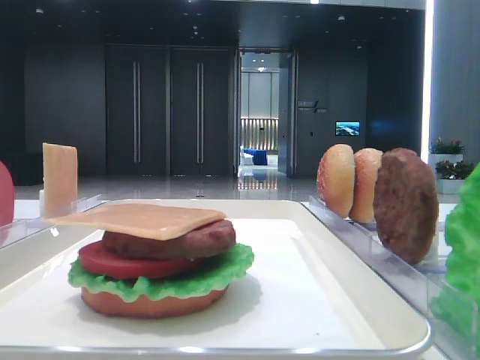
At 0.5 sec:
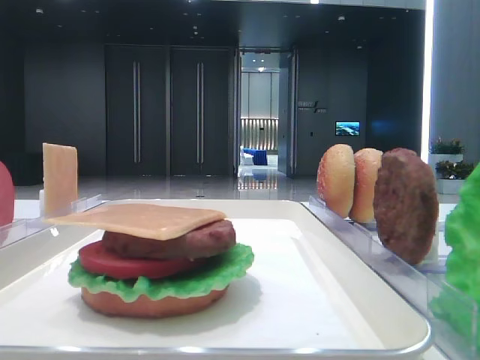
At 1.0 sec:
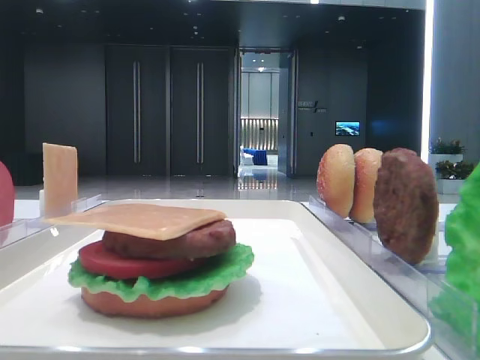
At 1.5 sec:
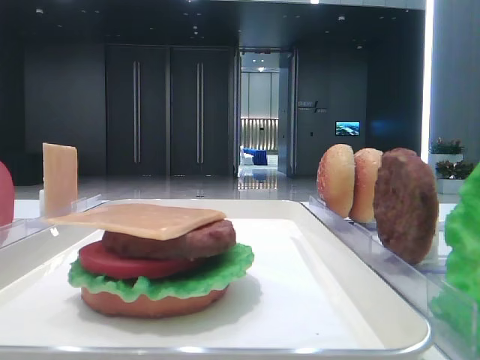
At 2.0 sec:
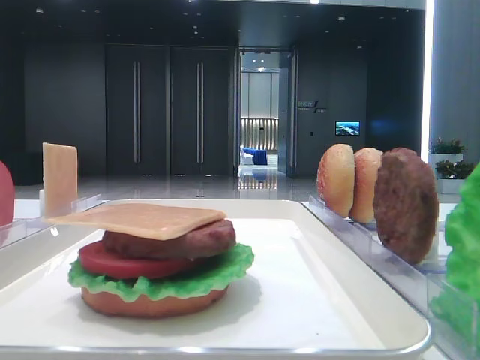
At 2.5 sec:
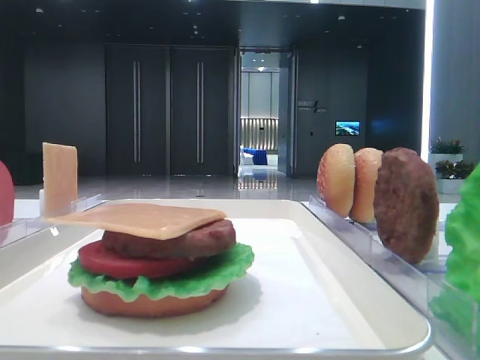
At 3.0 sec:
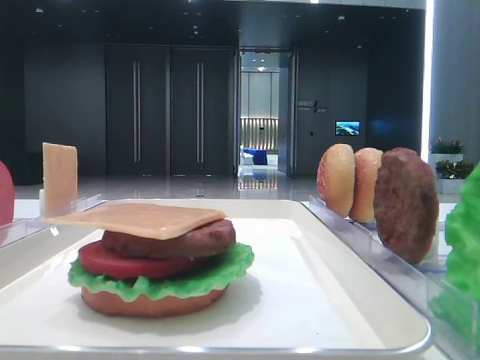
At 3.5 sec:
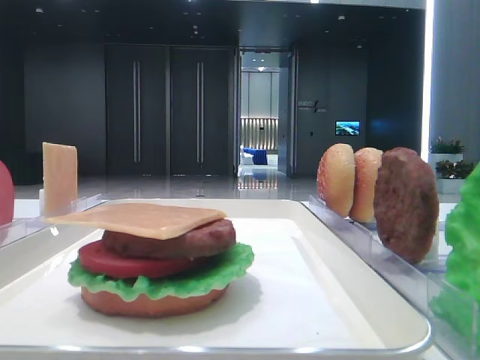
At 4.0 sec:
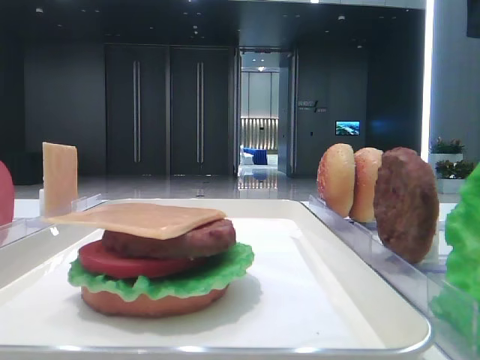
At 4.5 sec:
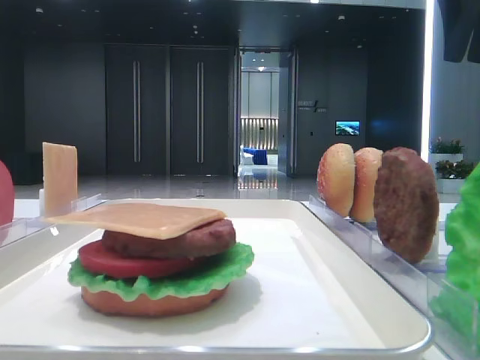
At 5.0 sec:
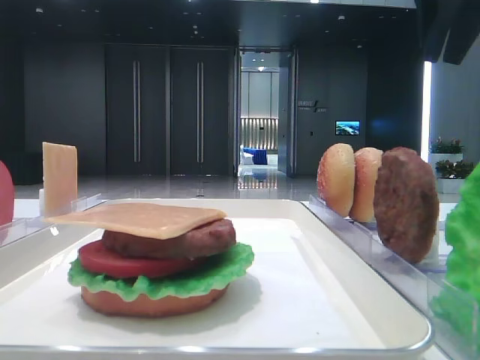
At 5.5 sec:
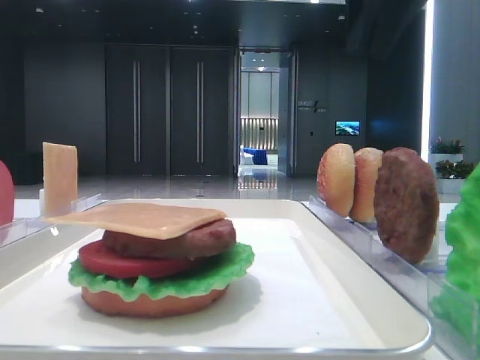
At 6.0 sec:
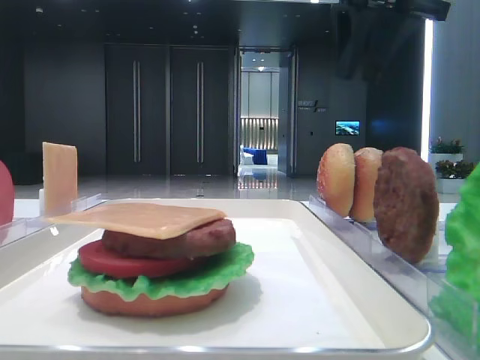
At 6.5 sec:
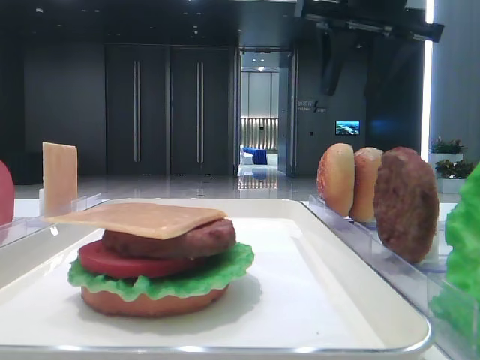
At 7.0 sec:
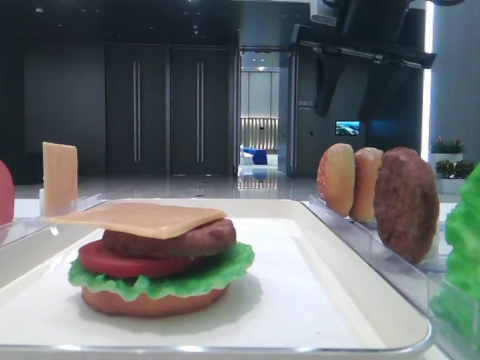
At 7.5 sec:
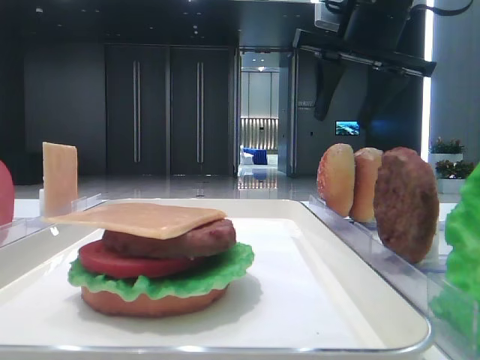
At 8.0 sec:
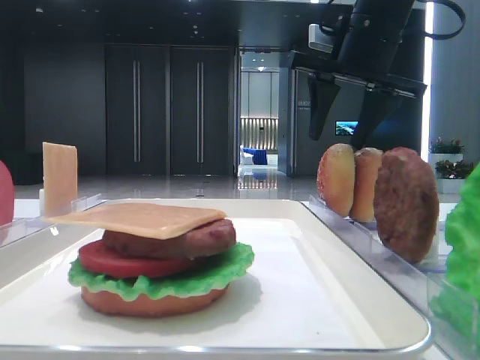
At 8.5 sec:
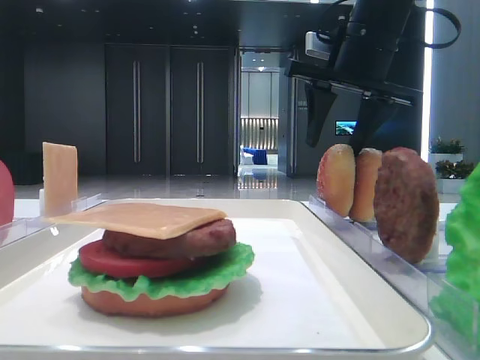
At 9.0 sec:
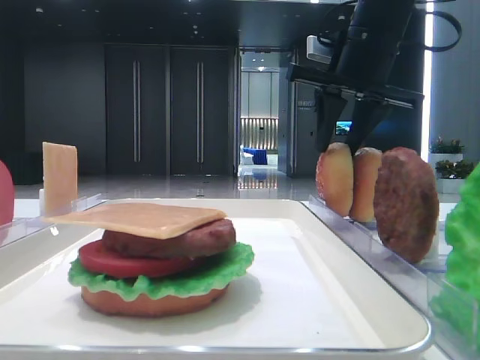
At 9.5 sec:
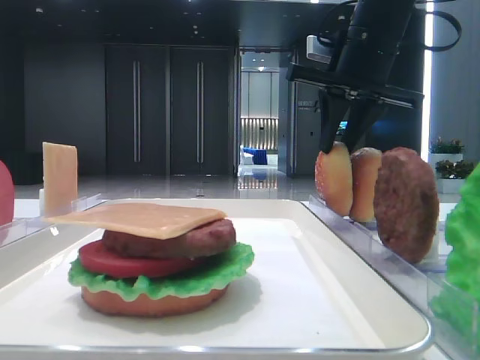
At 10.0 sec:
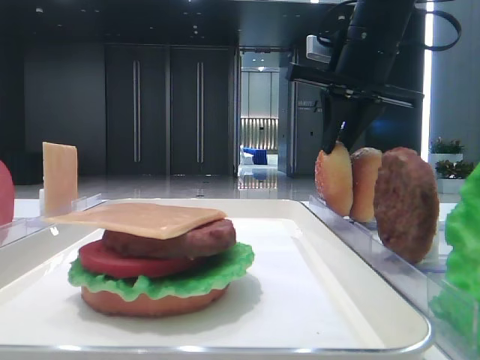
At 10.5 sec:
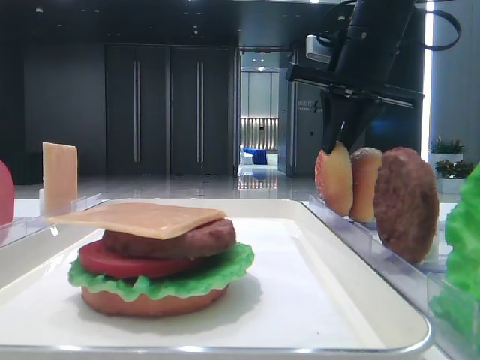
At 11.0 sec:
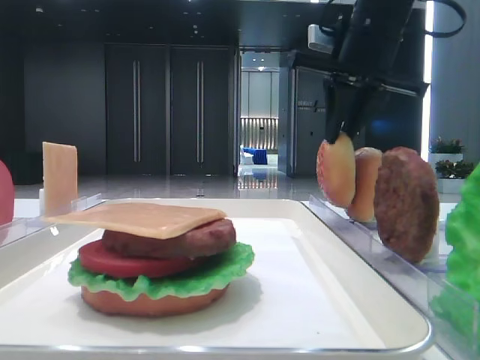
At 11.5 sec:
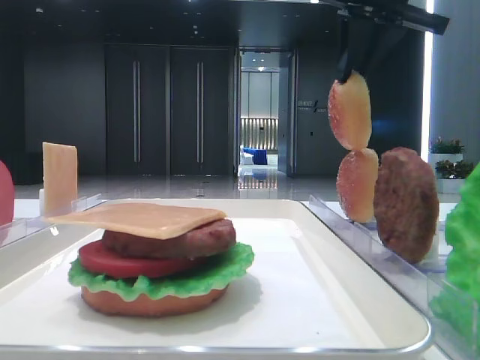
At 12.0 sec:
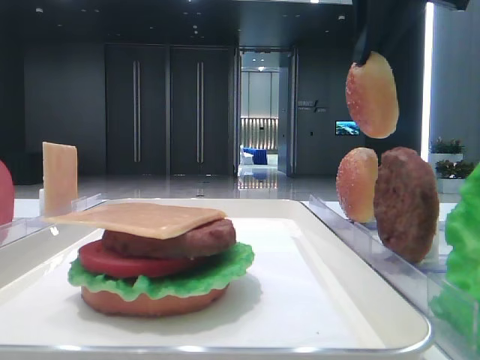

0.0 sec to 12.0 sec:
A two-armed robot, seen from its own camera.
Step, 0.0 sec to 10.5 sec: Pick up the top bread slice with the right hand.
4.0 sec to 6.0 sec: The right gripper is displaced to the left by roughly 10 cm.
6.0 sec to 8.0 sec: The right gripper travels downward and forward by about 10 cm.
8.0 sec to 10.0 sec: The right gripper closes up.
10.0 sec to 12.0 sec: The right gripper goes about 10 cm upward and backward.

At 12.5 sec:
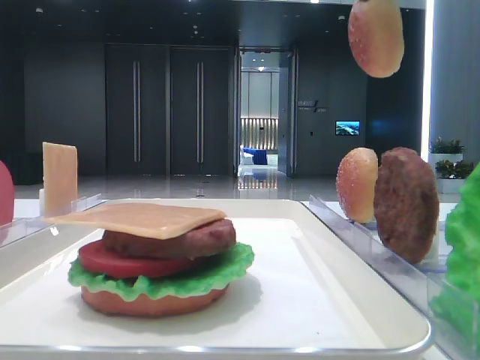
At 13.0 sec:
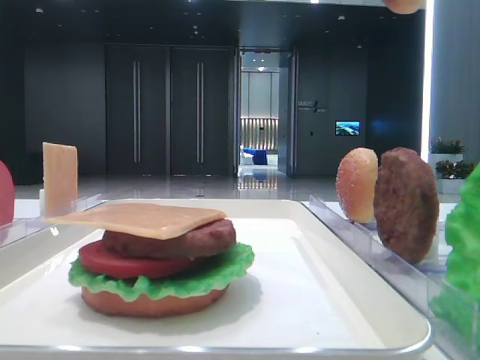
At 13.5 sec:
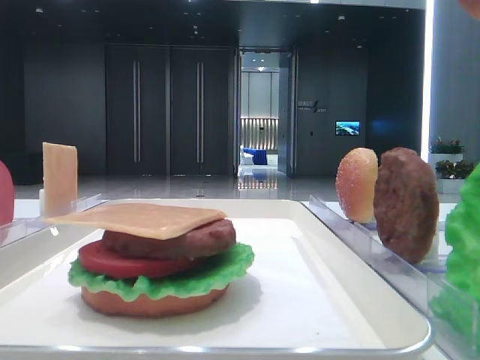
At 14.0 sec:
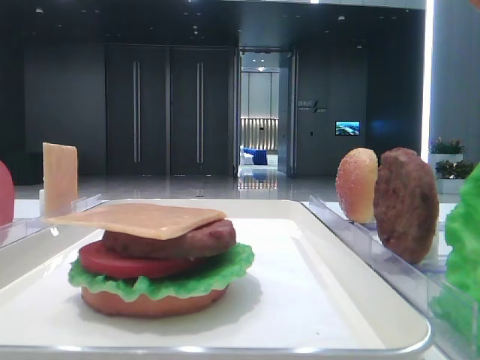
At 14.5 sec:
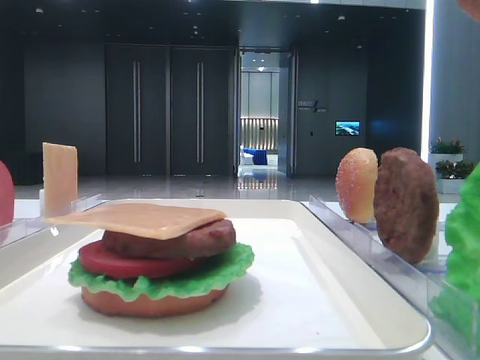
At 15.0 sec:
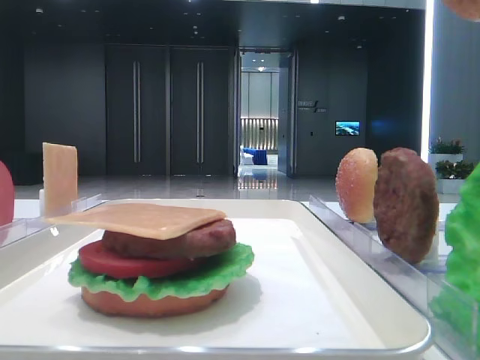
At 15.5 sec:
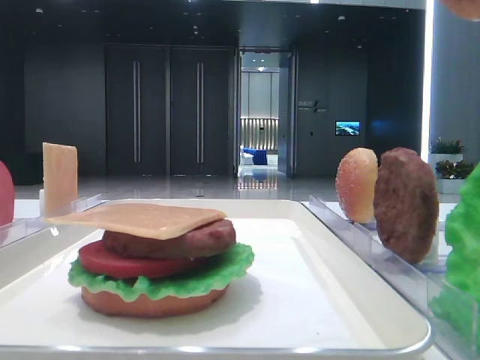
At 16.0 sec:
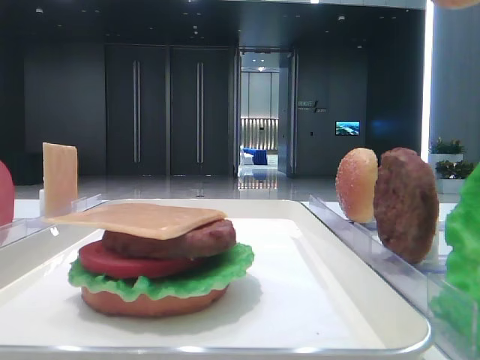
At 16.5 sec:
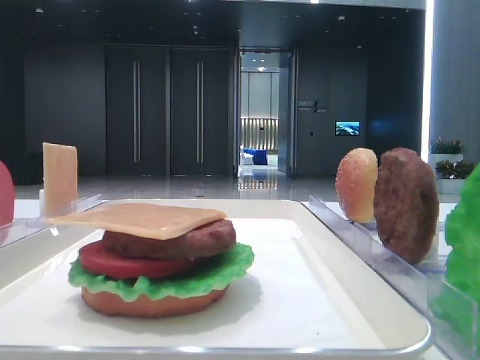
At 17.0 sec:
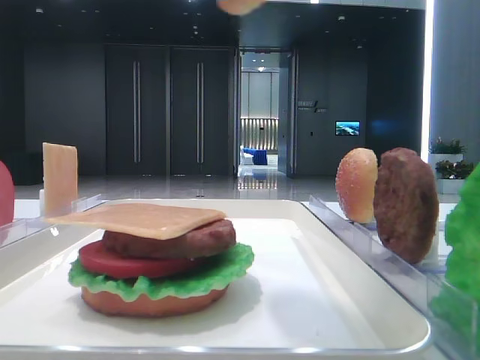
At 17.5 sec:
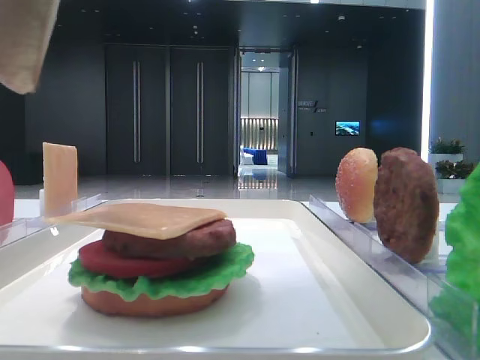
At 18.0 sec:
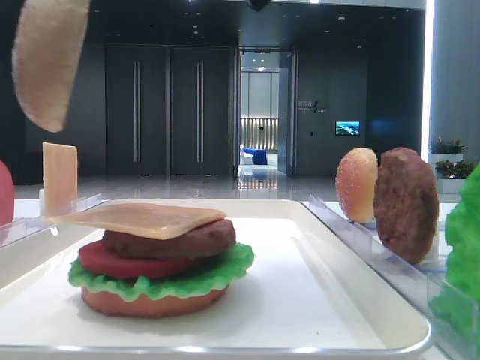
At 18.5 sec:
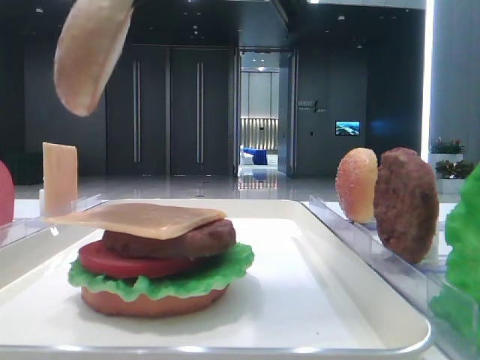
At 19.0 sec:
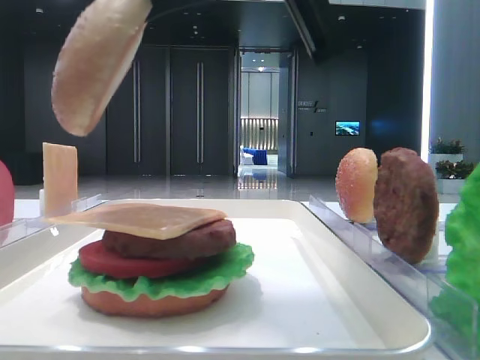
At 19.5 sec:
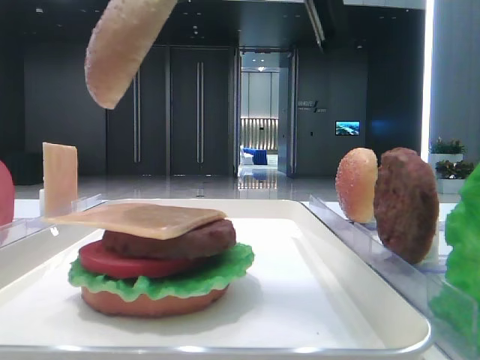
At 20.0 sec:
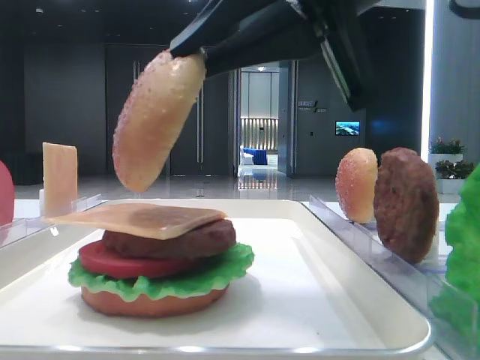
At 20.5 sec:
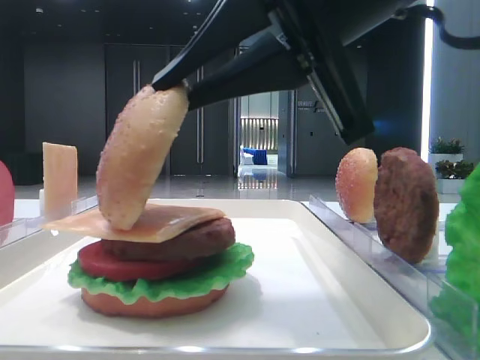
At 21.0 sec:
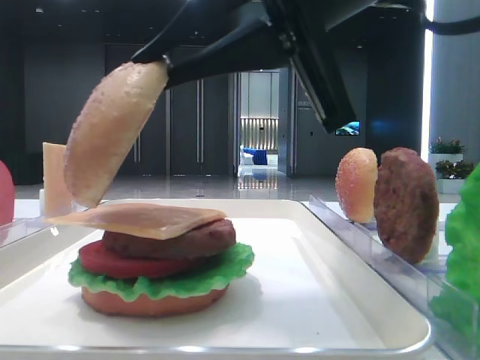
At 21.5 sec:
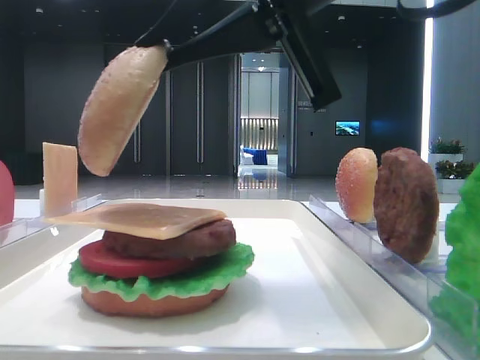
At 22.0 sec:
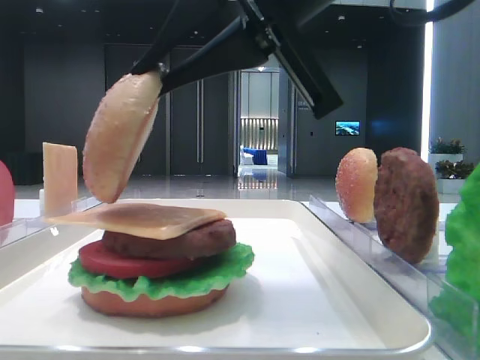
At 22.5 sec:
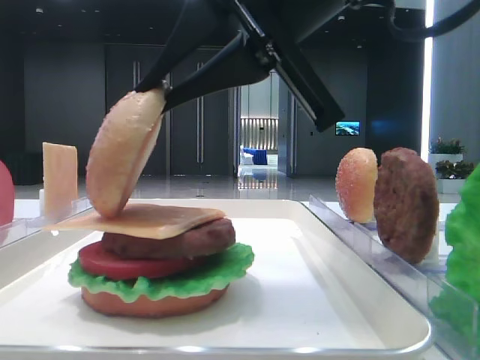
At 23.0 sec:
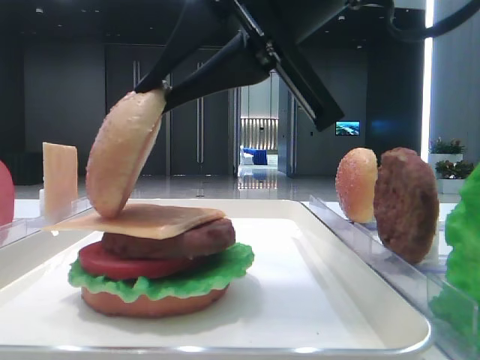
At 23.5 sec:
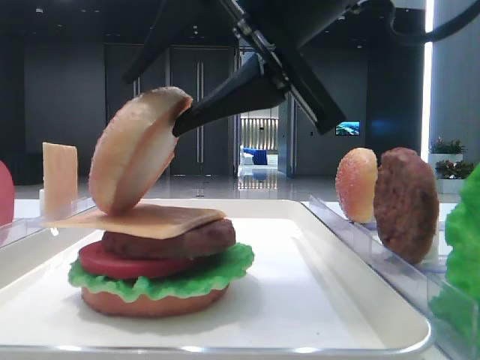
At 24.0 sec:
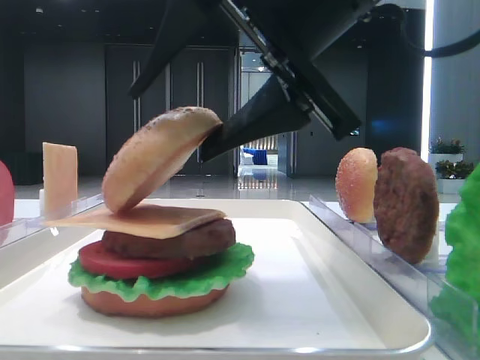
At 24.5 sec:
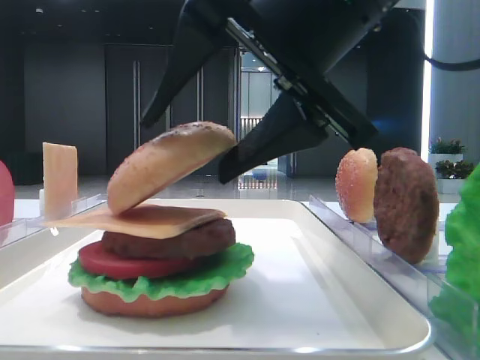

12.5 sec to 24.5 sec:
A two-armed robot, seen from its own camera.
12.5 sec to 14.5 sec: The right gripper is displaced backward by approximately 20 cm.
16.5 sec to 18.5 sec: The right gripper heads to the left and downward, covering roughly 20 cm.
18.5 sec to 20.5 sec: The right gripper moves downward, approximately 5 cm.
20.5 sec to 22.5 sec: The grippers move only a little.
22.5 sec to 24.5 sec: The right gripper opens its fingers.

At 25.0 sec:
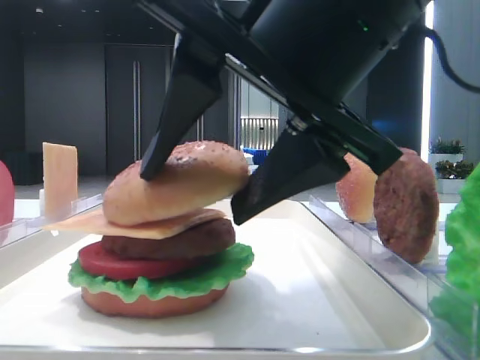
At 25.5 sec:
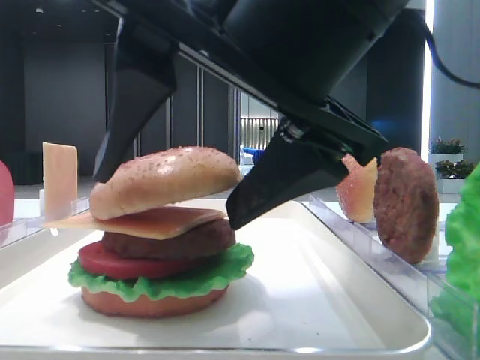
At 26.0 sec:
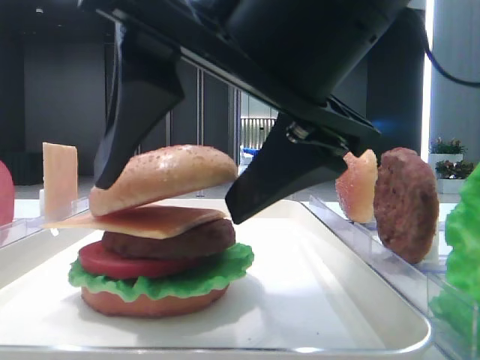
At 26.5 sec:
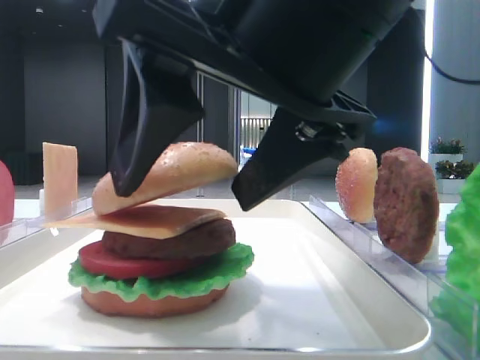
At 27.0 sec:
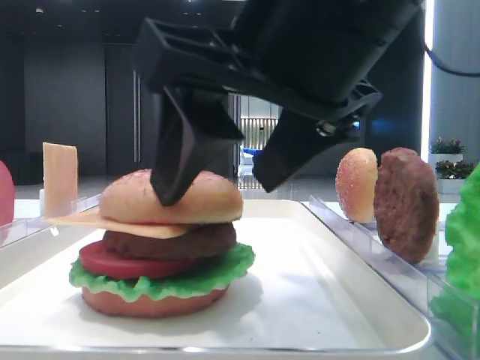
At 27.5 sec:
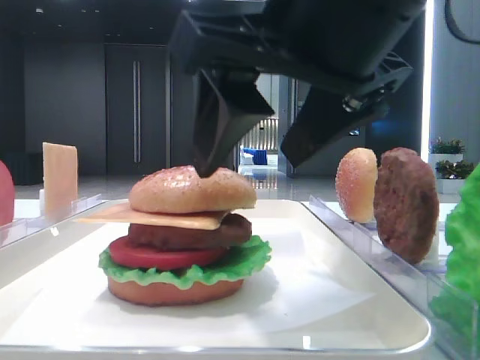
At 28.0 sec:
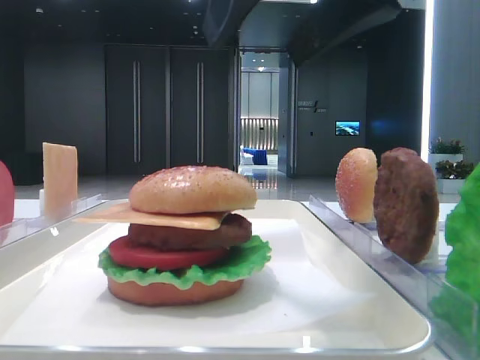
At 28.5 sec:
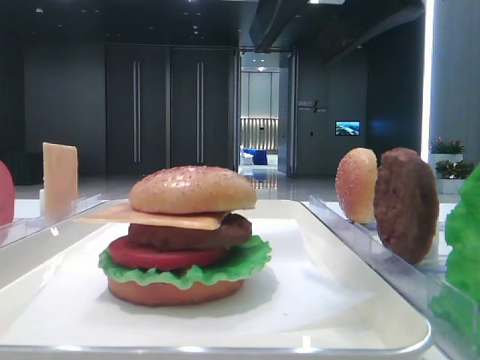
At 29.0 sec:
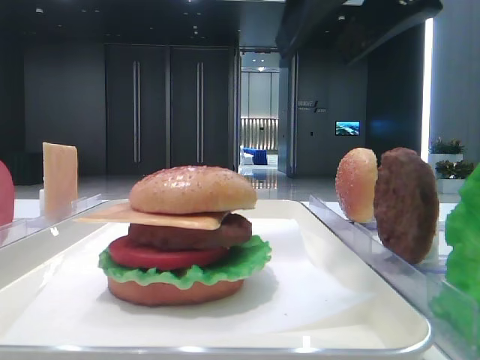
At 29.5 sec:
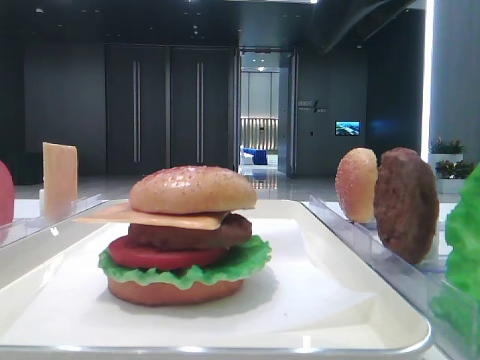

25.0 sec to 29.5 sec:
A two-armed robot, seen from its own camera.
Step, 25.0 sec to 27.0 sec: Place the top bread slice on the cheese with the right hand.
27.0 sec to 29.5 sec: The right gripper moves upward and to the right, about 10 cm.
